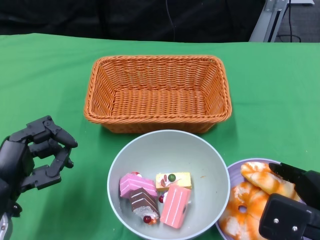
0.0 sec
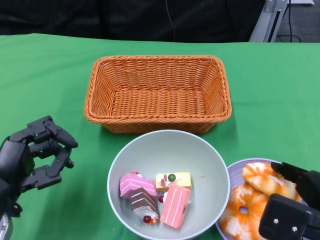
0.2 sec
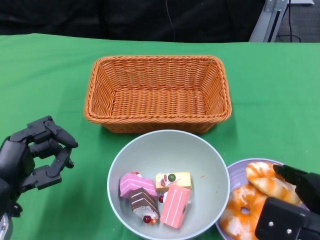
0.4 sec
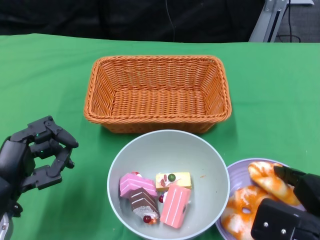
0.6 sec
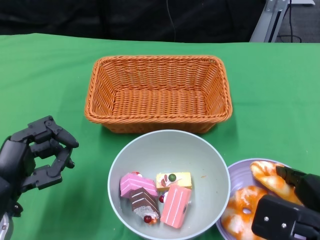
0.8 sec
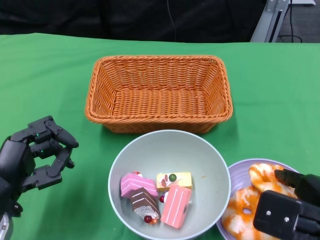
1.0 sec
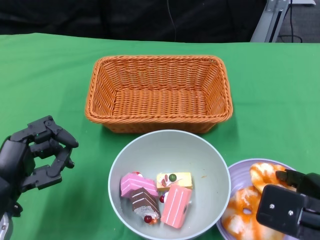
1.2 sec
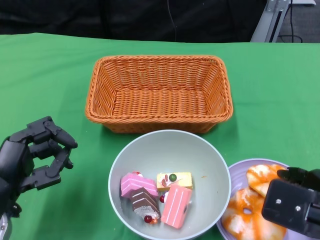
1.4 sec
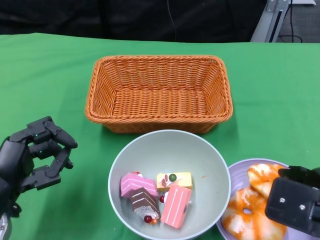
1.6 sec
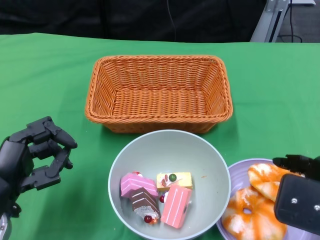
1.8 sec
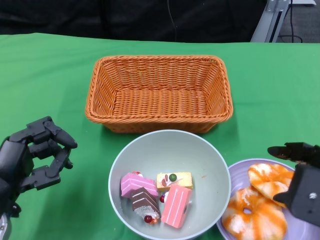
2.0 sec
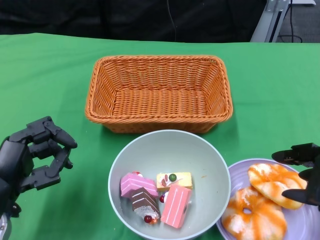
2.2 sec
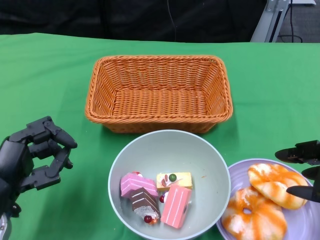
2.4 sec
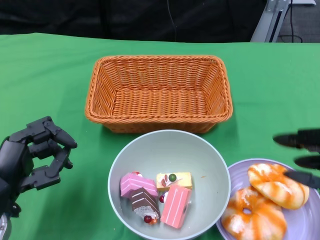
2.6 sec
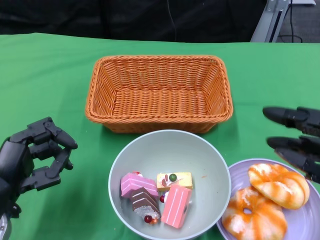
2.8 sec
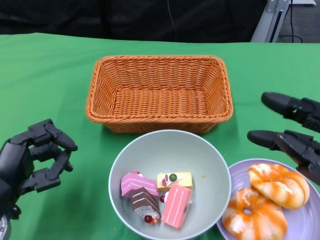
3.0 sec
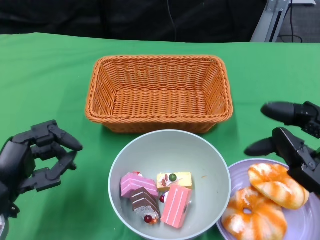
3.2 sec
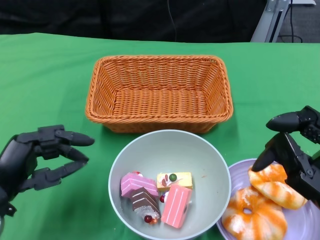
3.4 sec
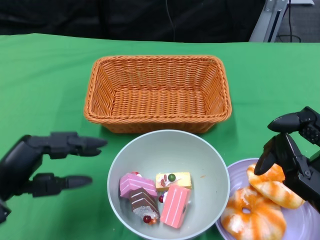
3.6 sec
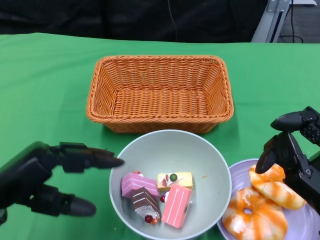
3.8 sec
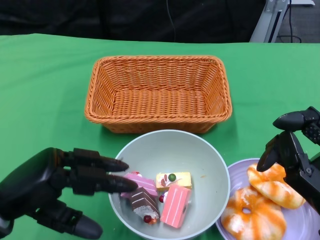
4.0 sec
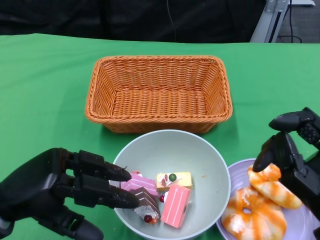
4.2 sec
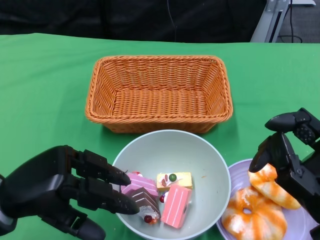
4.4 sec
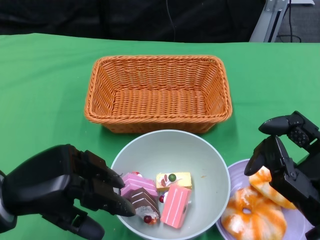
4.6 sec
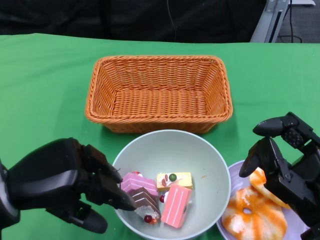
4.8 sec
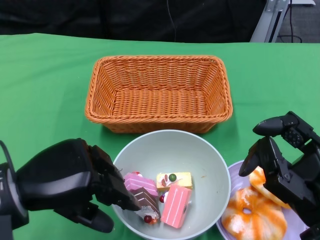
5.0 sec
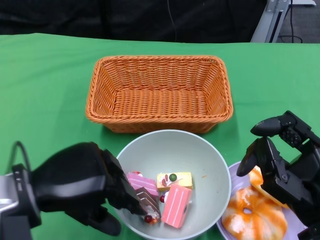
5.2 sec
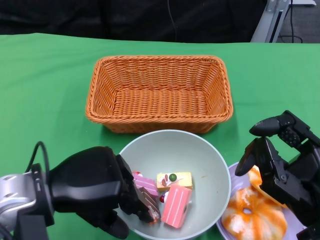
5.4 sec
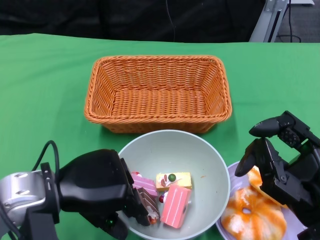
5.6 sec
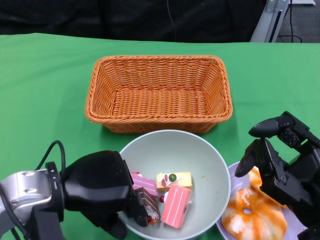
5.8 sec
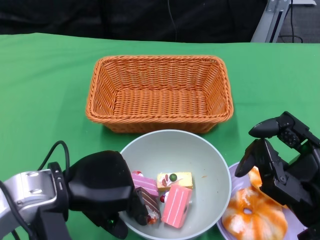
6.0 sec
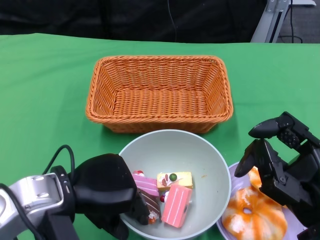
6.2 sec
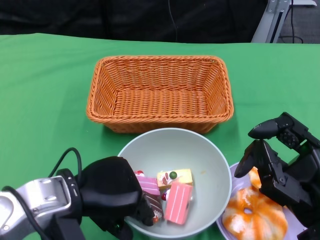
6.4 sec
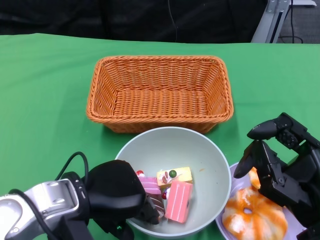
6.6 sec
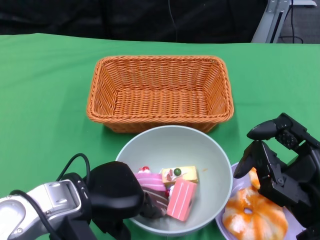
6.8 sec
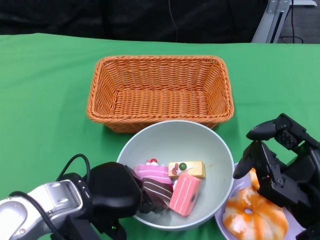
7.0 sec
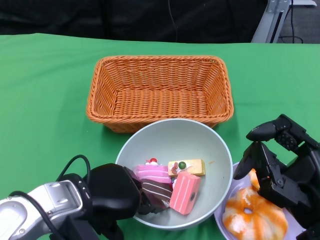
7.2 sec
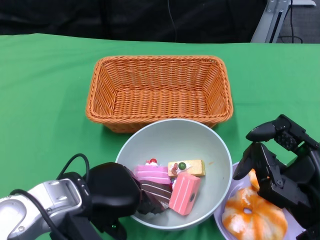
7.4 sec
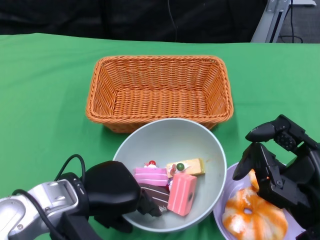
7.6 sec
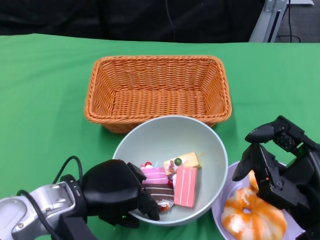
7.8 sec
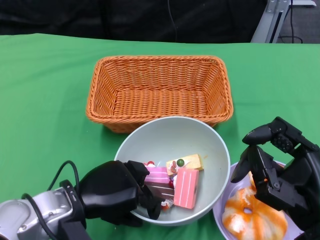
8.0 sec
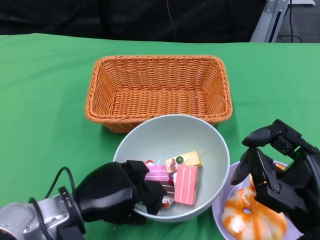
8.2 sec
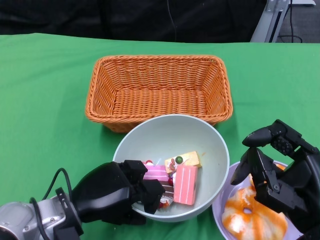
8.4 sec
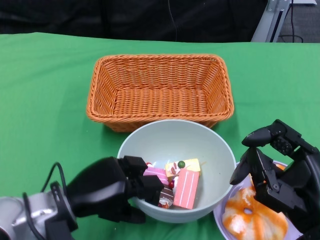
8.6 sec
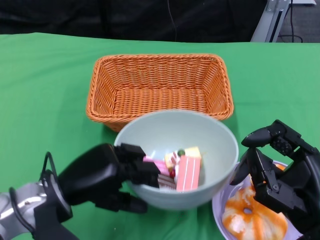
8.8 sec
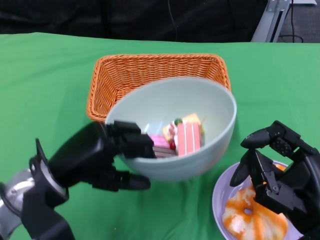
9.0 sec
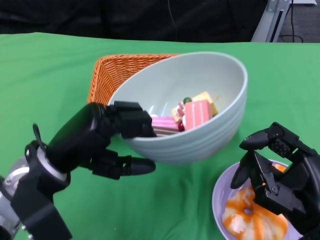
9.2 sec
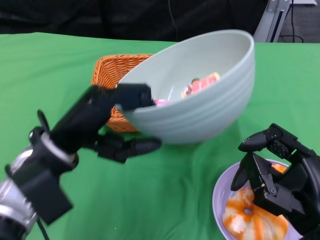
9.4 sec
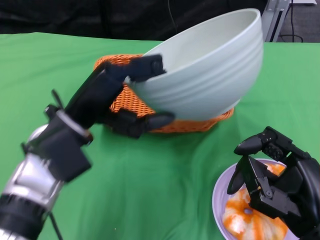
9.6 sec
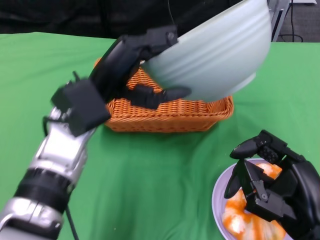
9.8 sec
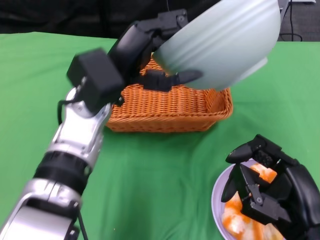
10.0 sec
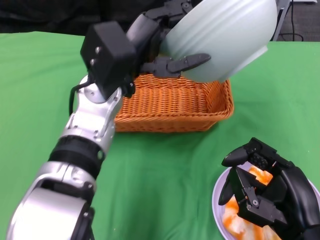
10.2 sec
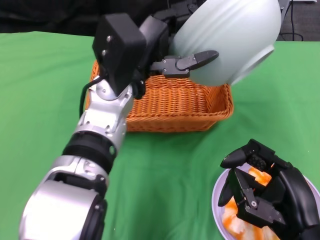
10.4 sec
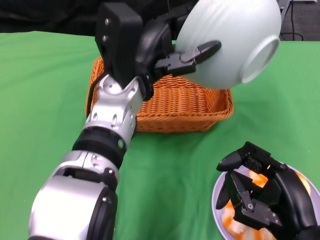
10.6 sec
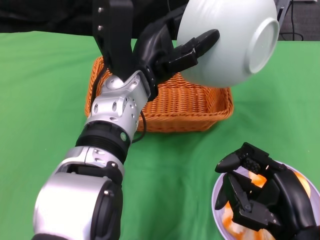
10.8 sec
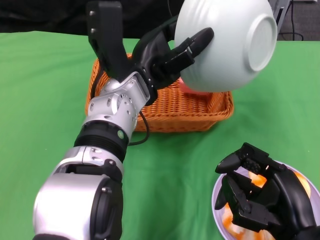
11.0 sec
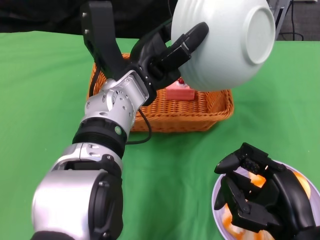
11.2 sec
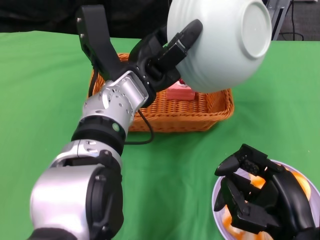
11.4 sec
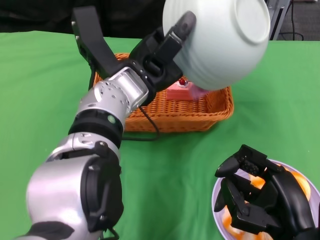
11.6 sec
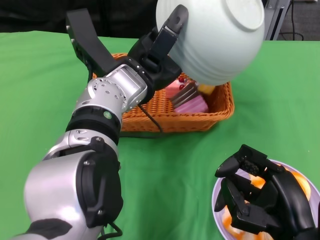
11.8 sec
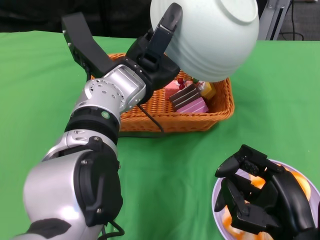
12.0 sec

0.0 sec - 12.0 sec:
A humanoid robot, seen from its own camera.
Step, 2.0 sec - 8.8 sec: Grasp the bowl with the left gripper.
0.0 sec - 1.6 sec: The hands move only a little.
3.0 sec - 4.4 sec: The left hand heads upward, covering roughly 5 cm.
4.4 sec - 6.0 sec: The left hand goes some 5 cm to the right.
9.0 sec - 10.4 sec: The left hand goes some 15 cm to the right, forward and upward.

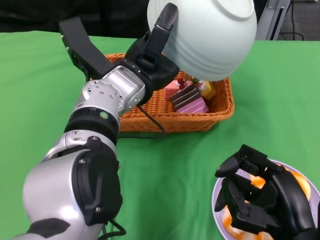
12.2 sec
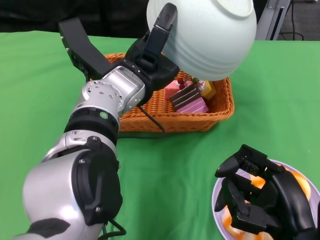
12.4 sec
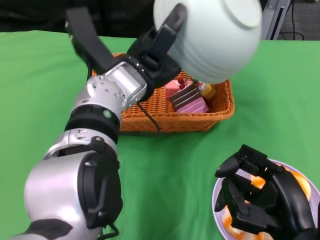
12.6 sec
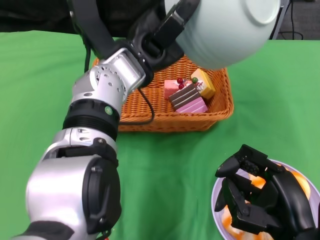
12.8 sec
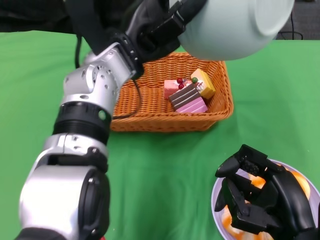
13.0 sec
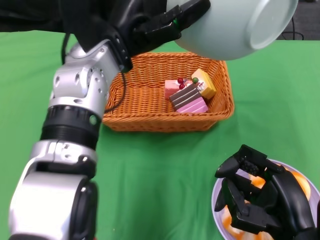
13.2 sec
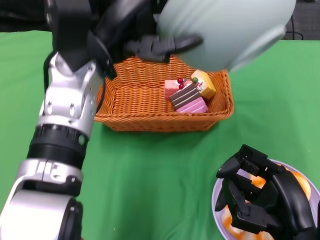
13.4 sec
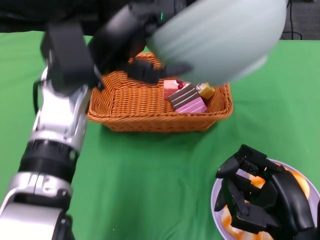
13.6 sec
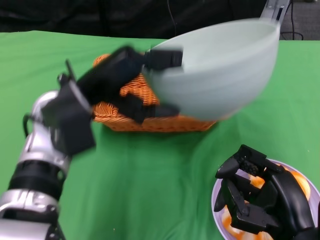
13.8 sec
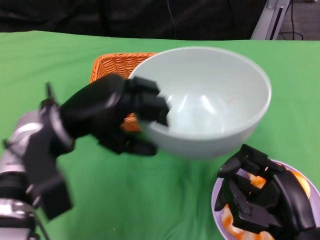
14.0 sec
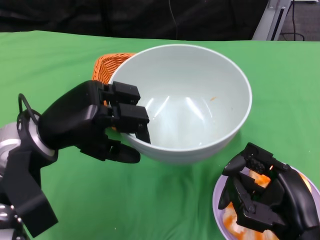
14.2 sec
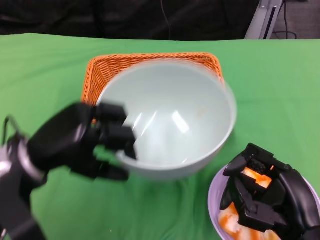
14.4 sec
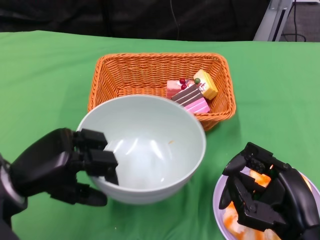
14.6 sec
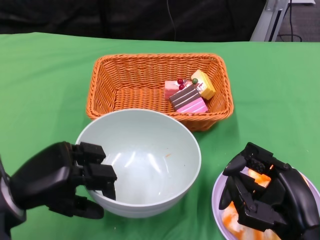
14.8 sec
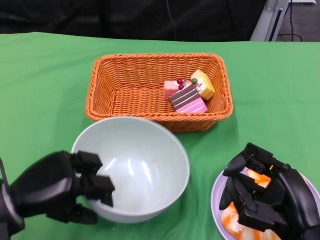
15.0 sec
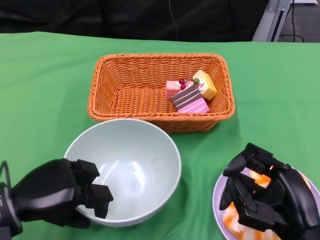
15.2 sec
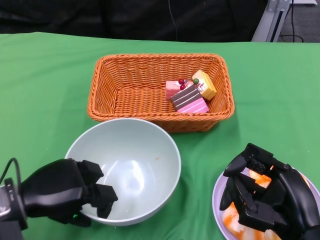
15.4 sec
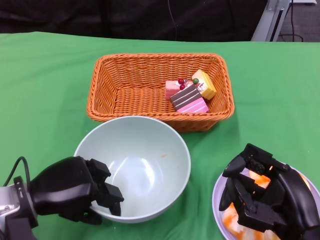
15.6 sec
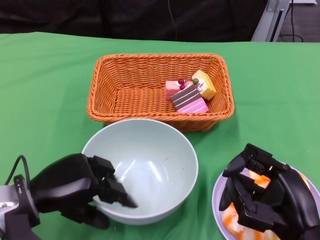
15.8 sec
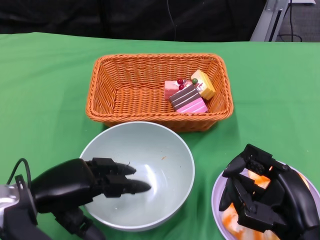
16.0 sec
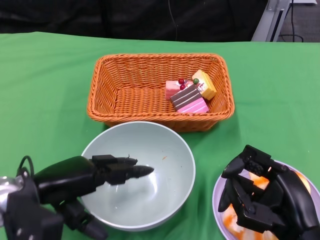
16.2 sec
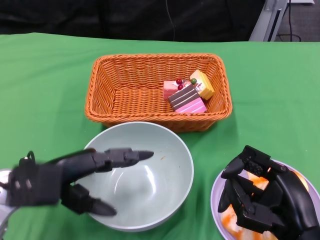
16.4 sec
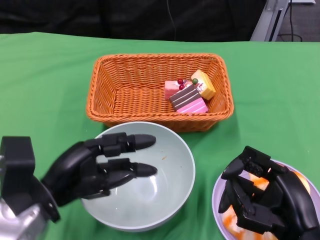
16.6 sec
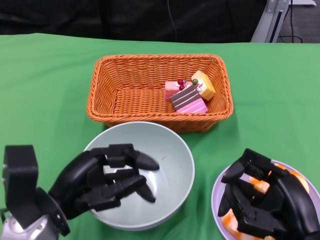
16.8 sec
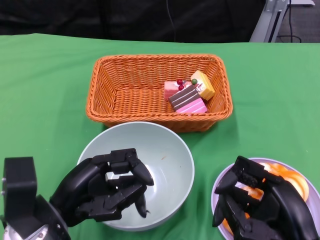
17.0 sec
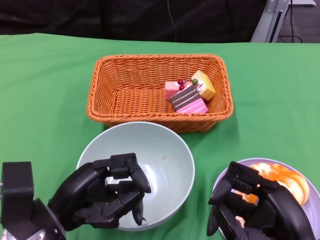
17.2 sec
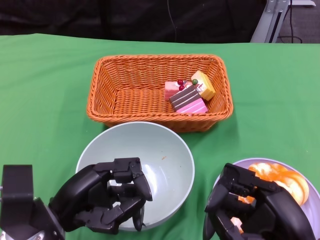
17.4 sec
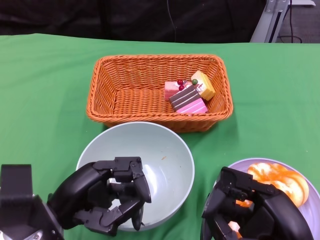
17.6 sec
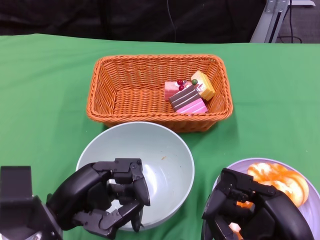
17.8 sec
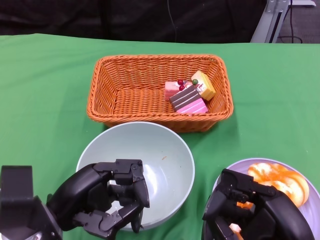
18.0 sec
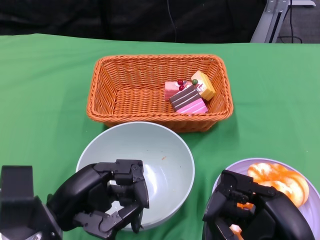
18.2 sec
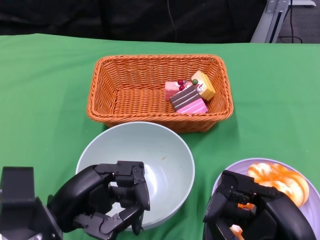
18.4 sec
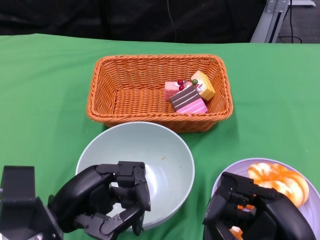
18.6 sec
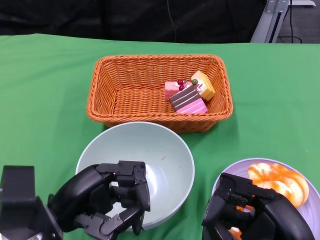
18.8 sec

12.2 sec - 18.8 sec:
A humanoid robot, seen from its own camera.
Step, 13.0 sec - 16.4 sec: Place the bowl on the table with the left gripper.
12.2 sec - 13.8 sec: The left hand goes some 10 cm to the left.
13.8 sec - 15.4 sec: The left hand moves downward, to the left and backward, some 15 cm.
15.4 sec - 17.2 sec: The left hand moves approximately 5 cm.
17.2 sec - 18.8 sec: The hands move only a little.

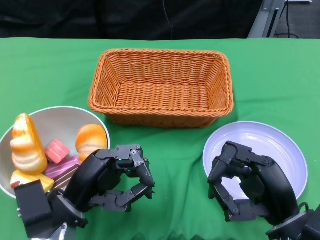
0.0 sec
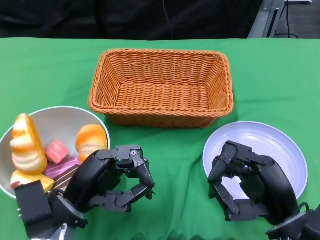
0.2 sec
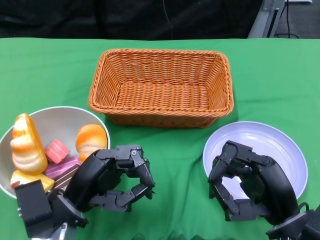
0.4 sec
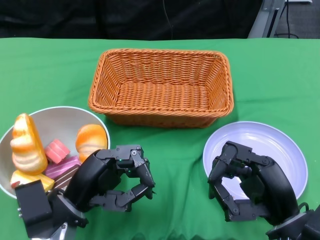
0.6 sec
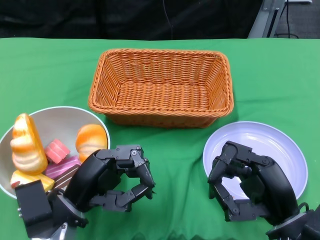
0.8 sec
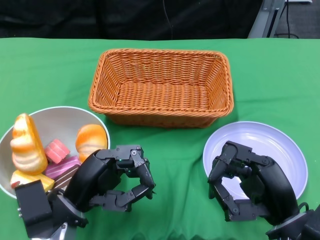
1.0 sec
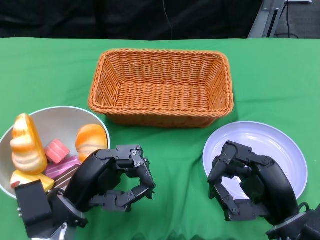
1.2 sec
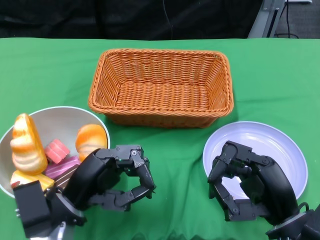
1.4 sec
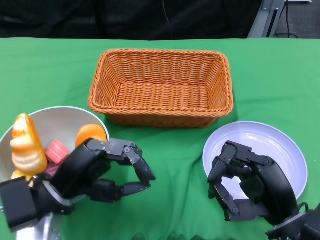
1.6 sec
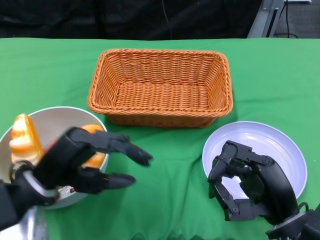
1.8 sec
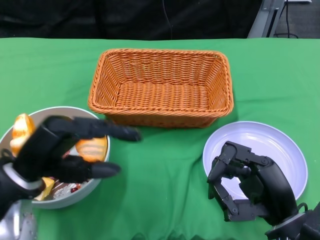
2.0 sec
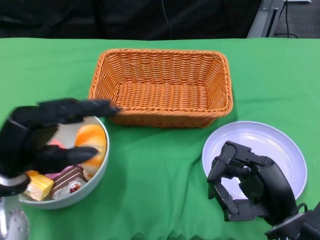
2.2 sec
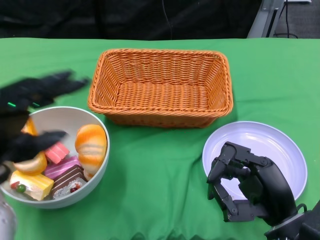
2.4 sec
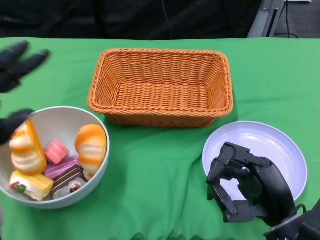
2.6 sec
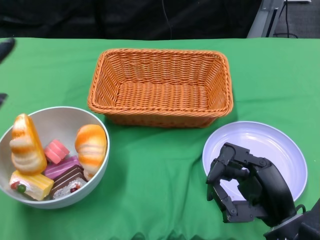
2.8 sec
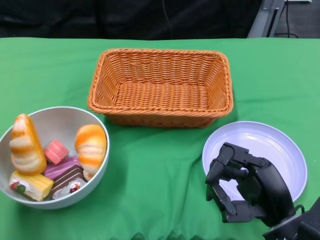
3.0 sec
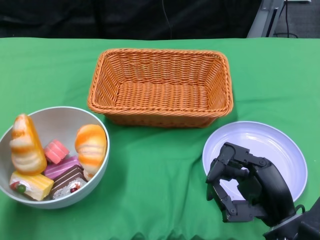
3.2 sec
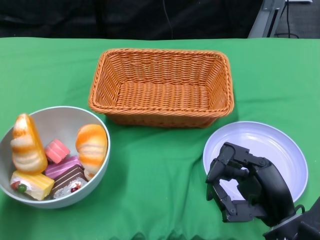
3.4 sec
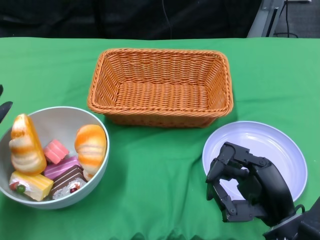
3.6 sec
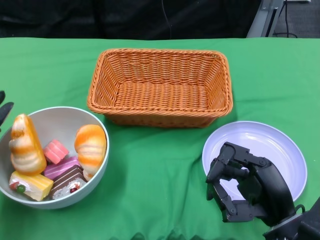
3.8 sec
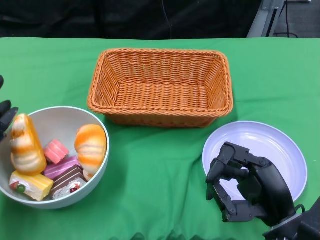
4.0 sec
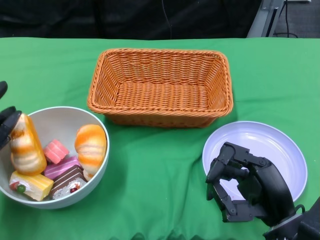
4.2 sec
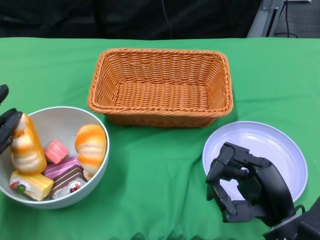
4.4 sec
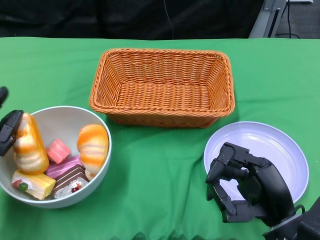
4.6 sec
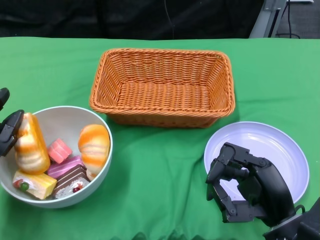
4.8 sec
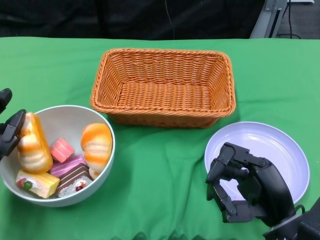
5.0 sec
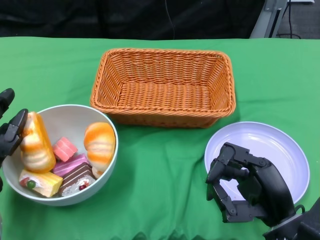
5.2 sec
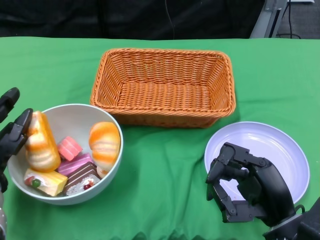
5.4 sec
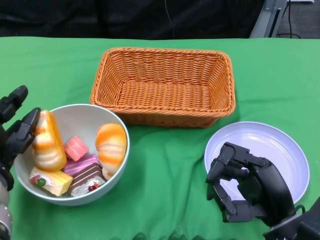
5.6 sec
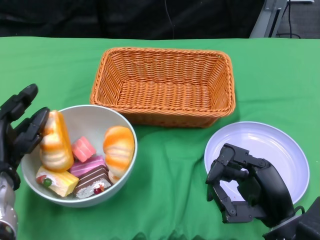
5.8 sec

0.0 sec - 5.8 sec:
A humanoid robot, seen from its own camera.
1.4 sec - 2.8 sec: The left hand heads to the left and upward, covering about 15 cm.
2.8 sec - 4.4 sec: The left hand goes about 5 cm downward.
